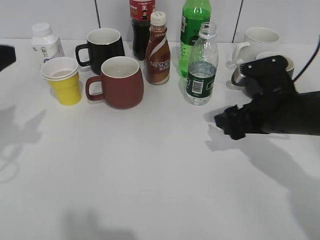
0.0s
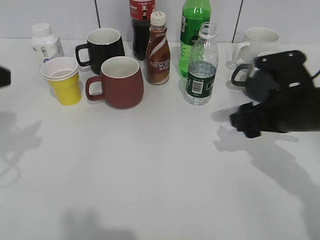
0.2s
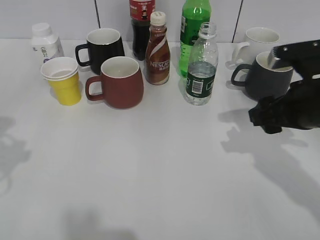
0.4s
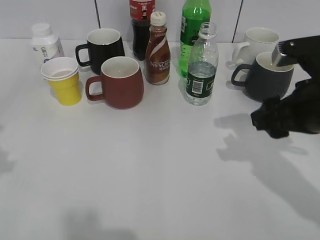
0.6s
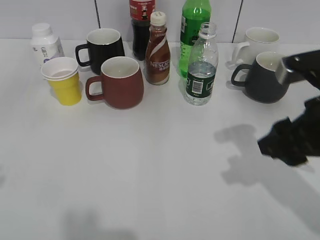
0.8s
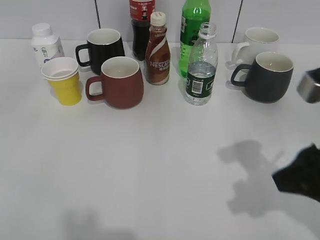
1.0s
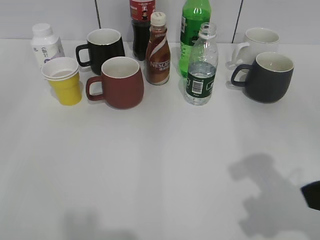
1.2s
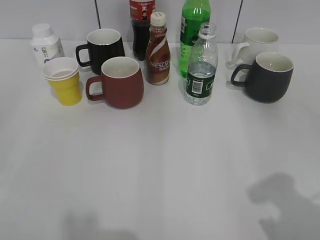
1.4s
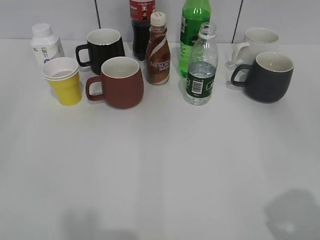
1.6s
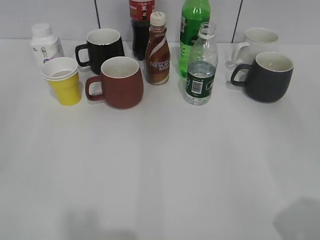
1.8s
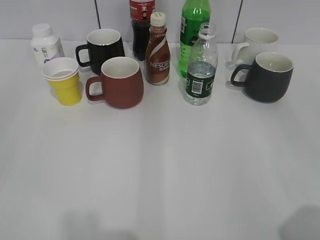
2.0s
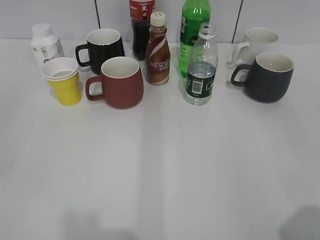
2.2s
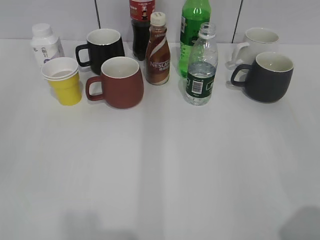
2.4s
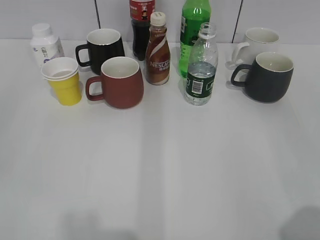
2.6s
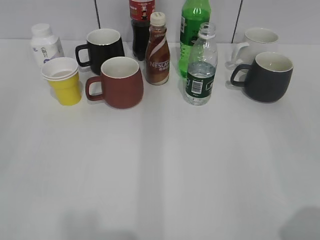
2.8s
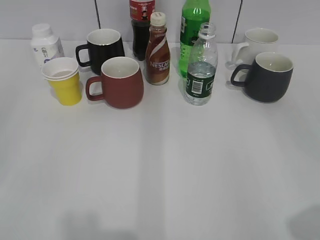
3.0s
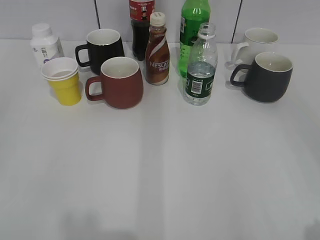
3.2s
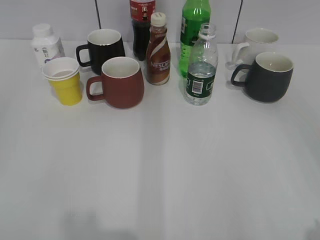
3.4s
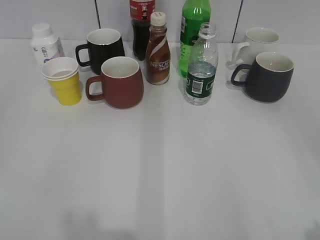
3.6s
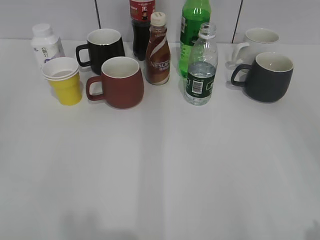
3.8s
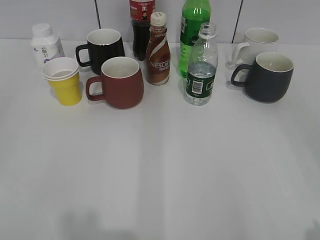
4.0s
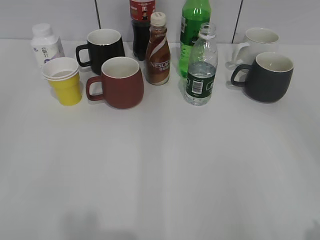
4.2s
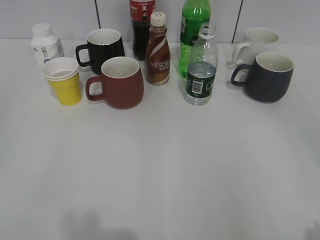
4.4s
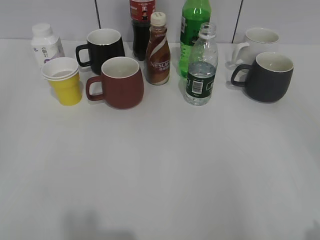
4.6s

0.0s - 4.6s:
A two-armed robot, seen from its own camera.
0.0s - 1.6s: The right gripper shifts some 25 cm backward and upward, and closes its fingers, while the left gripper goes roughly 20 cm backward.
1.6s - 3.0s: The grippers stay close to where they were, moving slightly.
